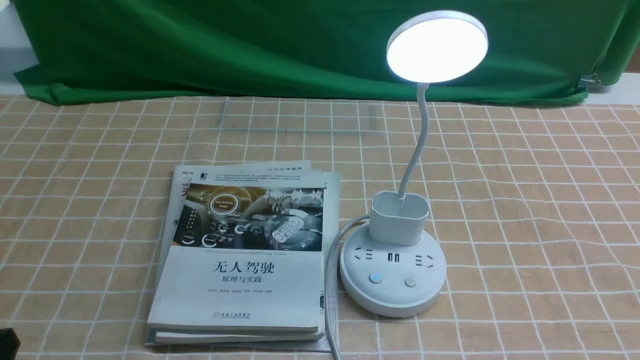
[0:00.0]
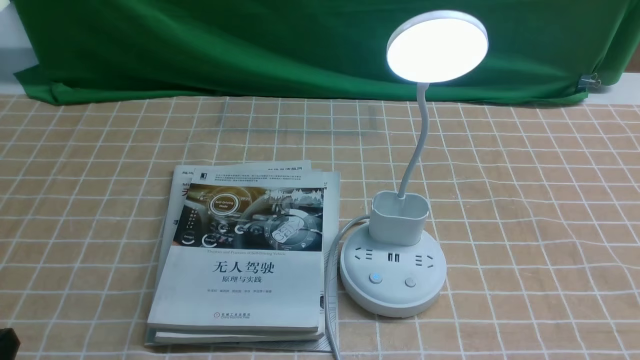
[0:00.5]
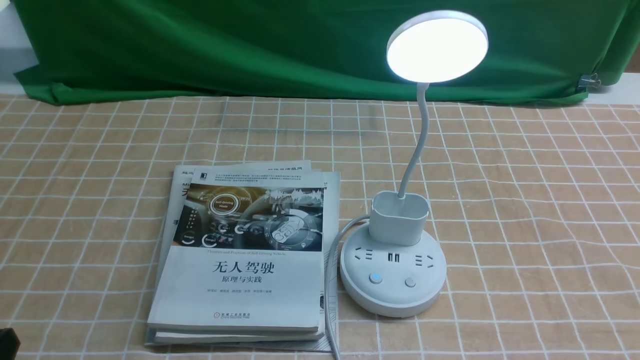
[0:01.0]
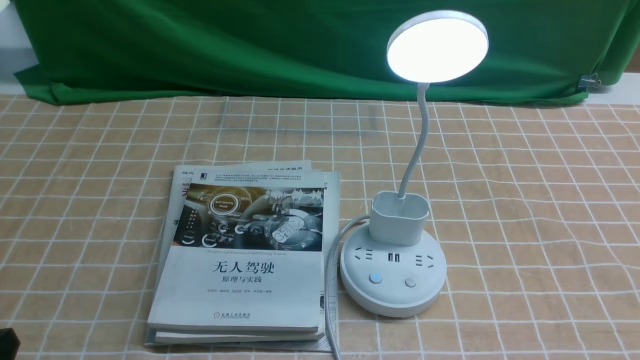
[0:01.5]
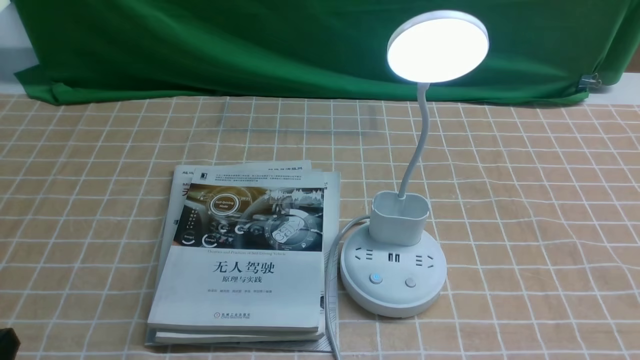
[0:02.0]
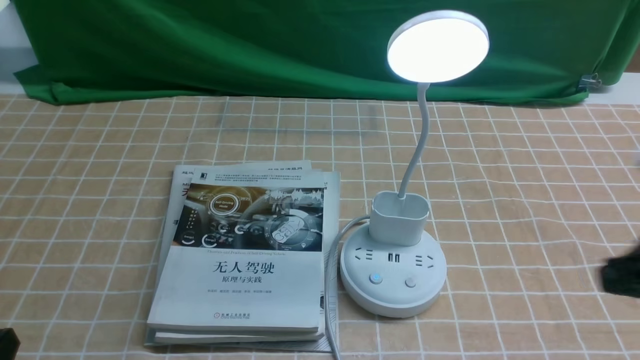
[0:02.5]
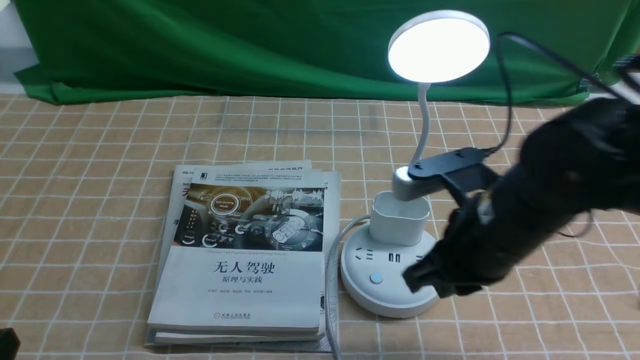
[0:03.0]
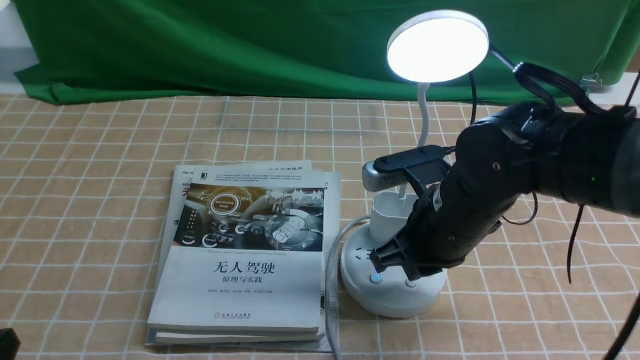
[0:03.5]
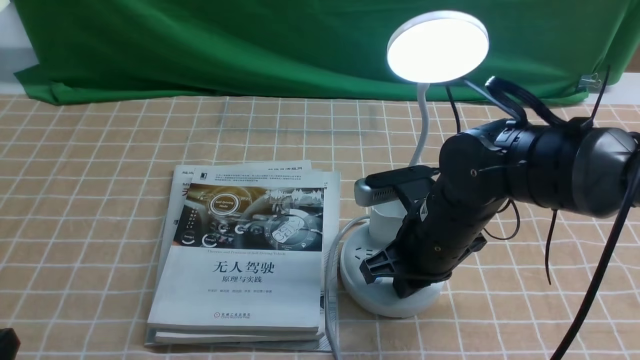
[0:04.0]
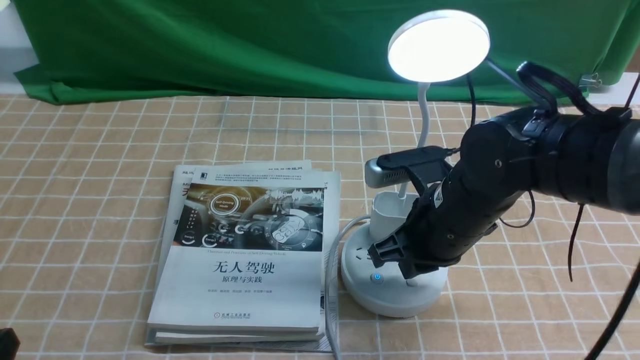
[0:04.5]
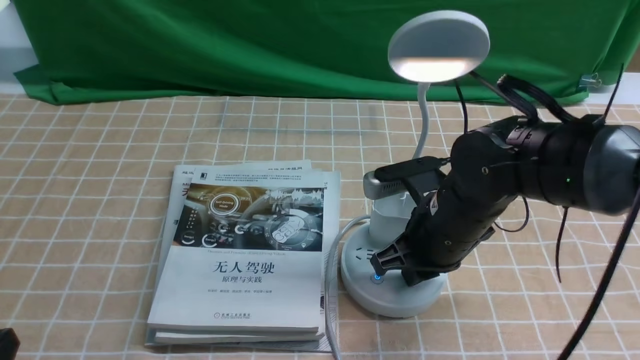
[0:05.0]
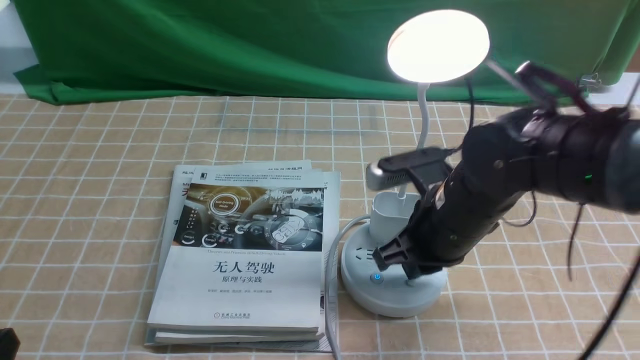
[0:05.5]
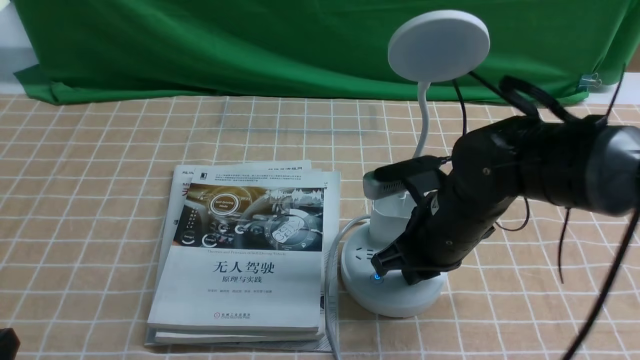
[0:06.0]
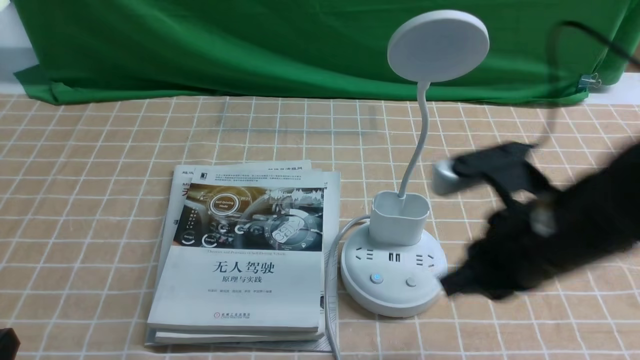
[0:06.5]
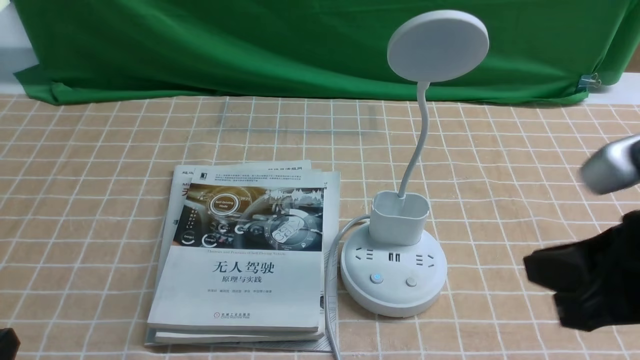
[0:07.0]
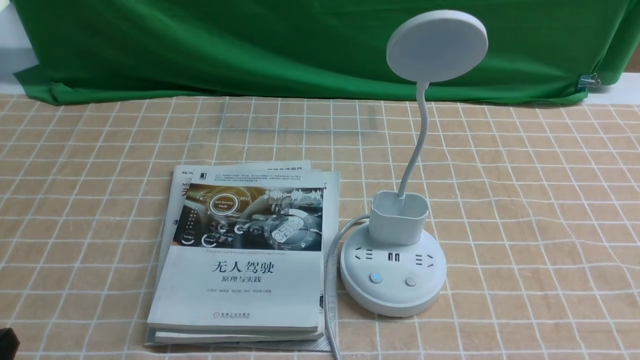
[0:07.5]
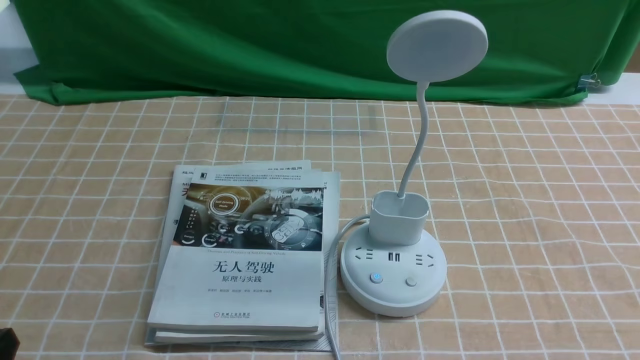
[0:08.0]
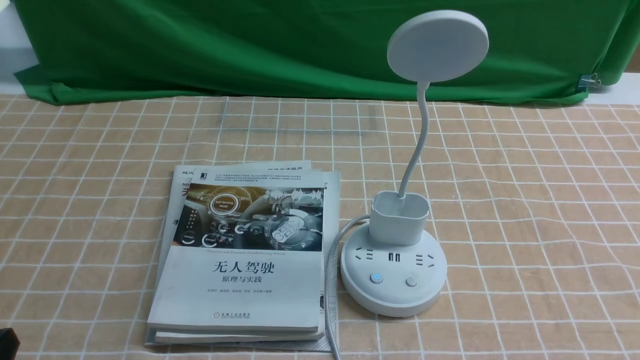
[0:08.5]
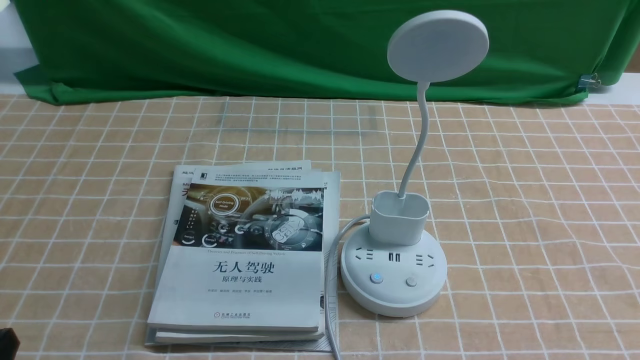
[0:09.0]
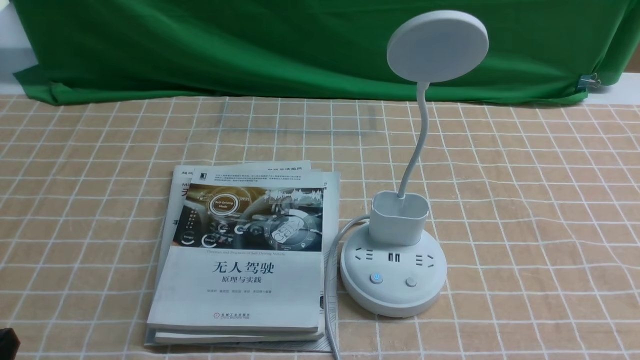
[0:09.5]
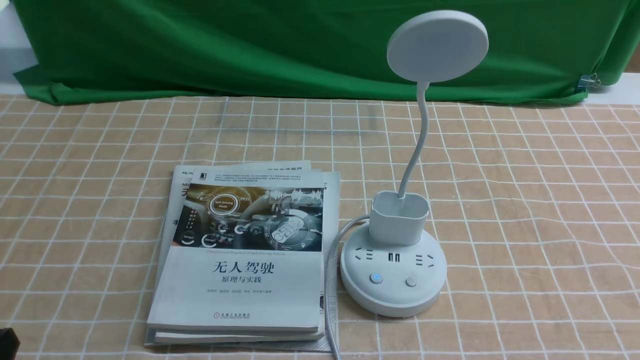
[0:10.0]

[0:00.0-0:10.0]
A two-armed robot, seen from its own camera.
Task of the whole recording: turn off the desk lamp on the light coffee tablecloth by hand.
Step, 0:00.0 to 0:06.0: use the right arm to press the button switch on the lamp holder.
0:02.0 to 0:04.0: The right gripper travels forward and to the left by roughly 30 cm, and closes.
0:04.0 to 0:06.0: There are only small adjustments of the grippers.
0:06.0 to 0:08.0: The right gripper is displaced backward and to the right by about 30 cm.

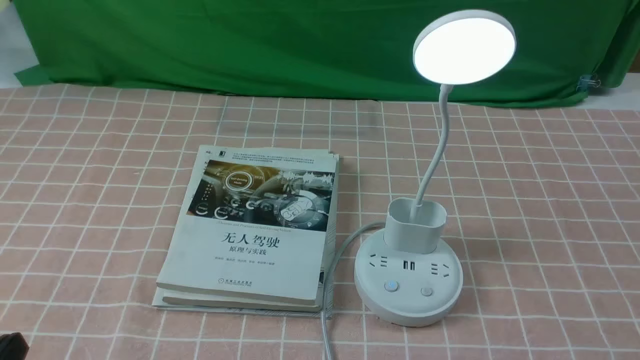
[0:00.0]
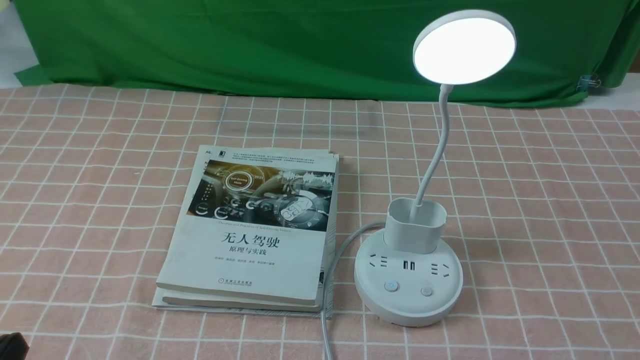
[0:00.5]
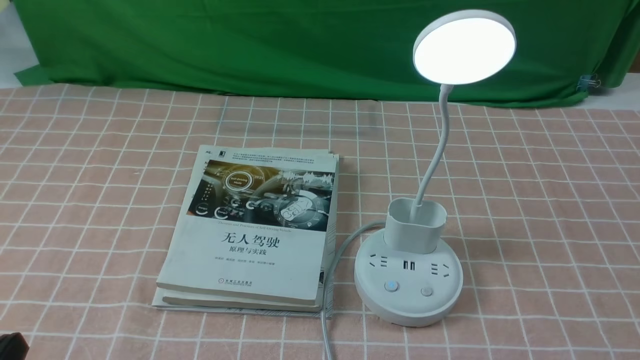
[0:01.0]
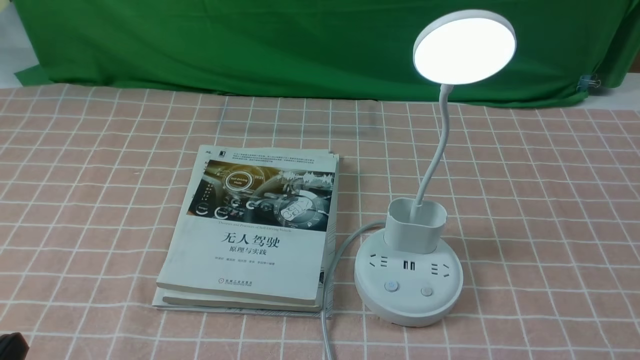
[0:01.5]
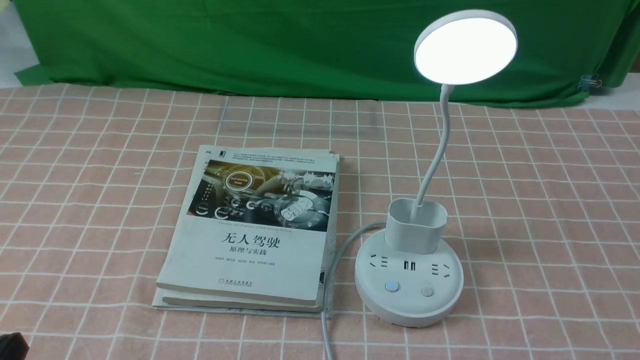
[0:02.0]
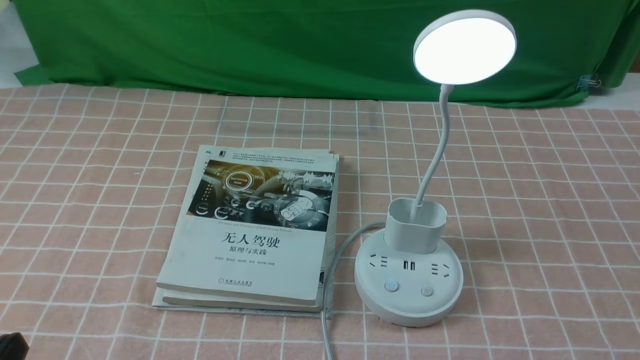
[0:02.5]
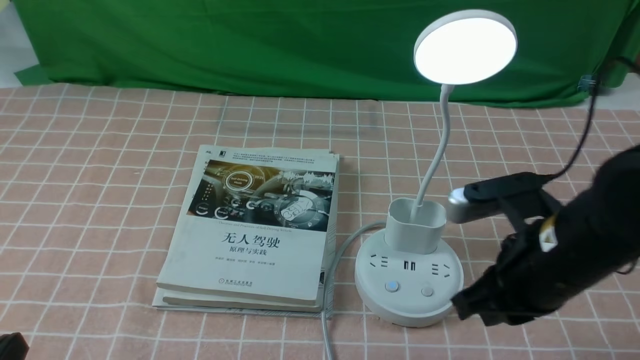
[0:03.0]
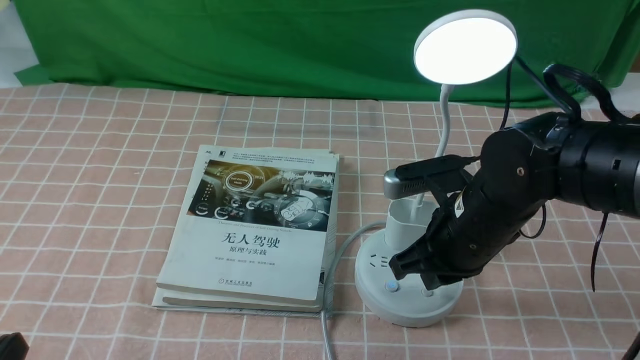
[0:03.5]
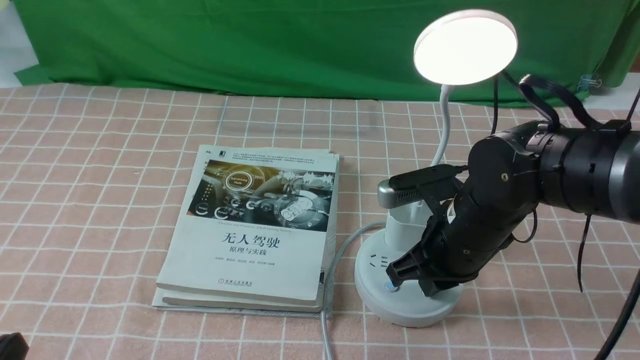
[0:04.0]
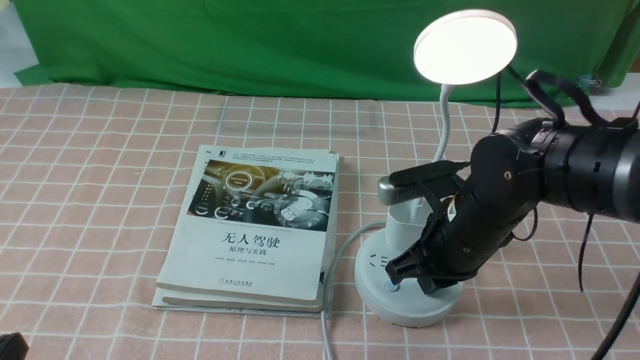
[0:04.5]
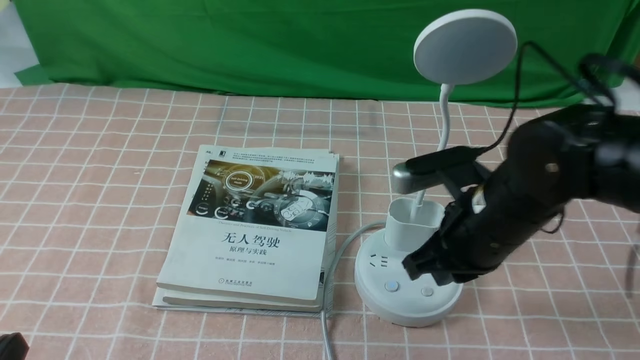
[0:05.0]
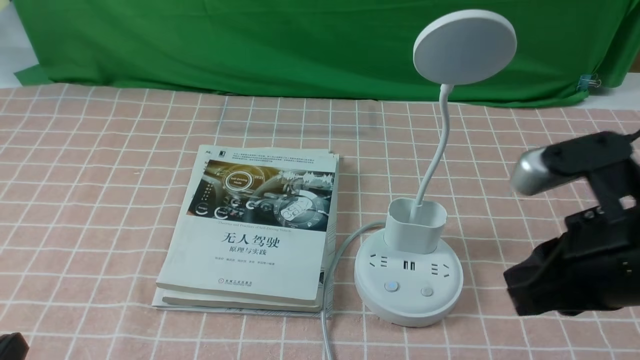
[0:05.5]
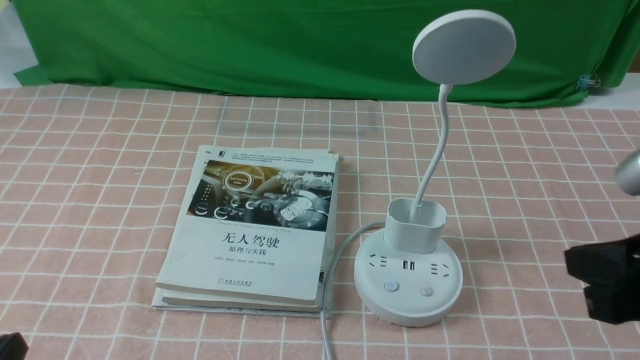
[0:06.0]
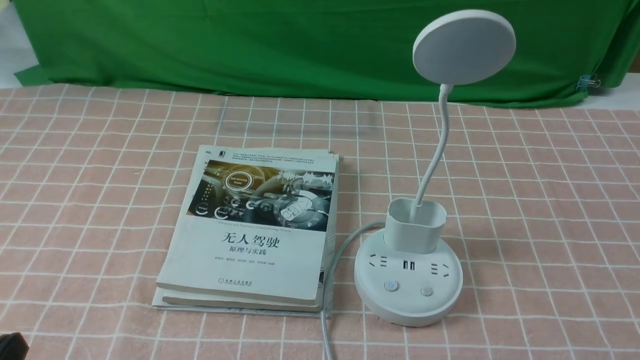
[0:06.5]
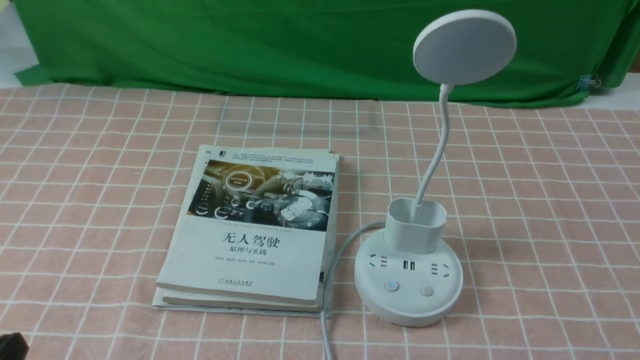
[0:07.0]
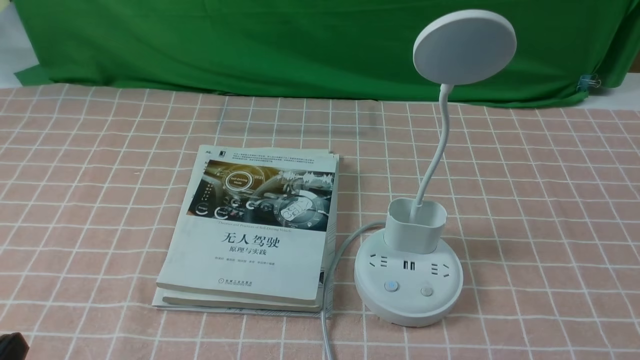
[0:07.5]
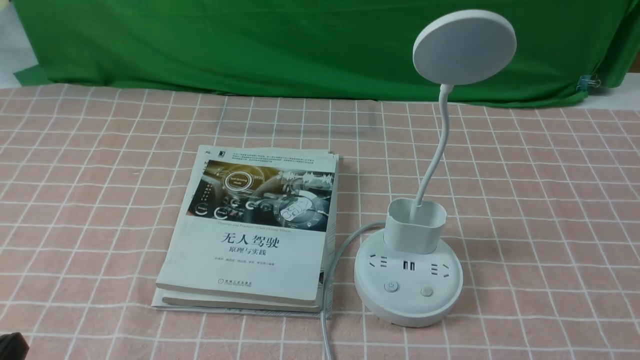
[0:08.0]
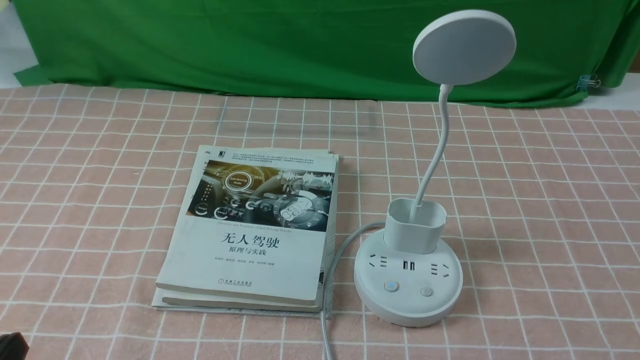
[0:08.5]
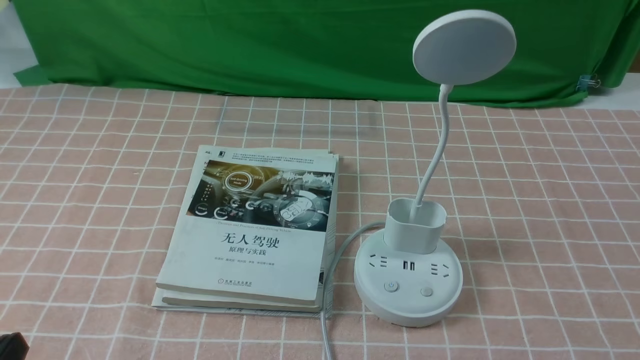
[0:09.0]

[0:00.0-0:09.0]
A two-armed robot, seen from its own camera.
Task of the whole recording: turn off the table lamp on the pink coffee tablecloth by hand.
Step, 0:00.0 to 0:04.5: use the right arm to press the button switch on the lamp holder.
0:02.0 to 0:04.5: The right gripper shifts about 30 cm forward and to the left, and closes.
0:04.5 to 0:07.0: The right gripper goes some 30 cm backward and to the right.
